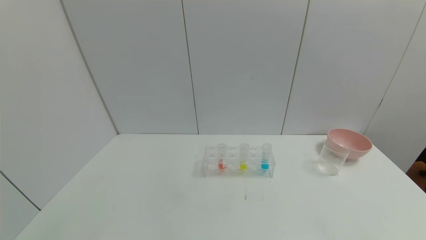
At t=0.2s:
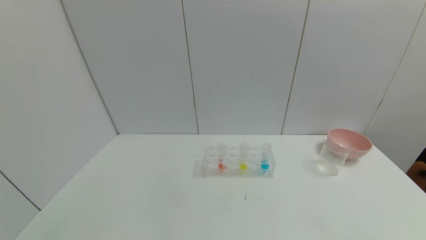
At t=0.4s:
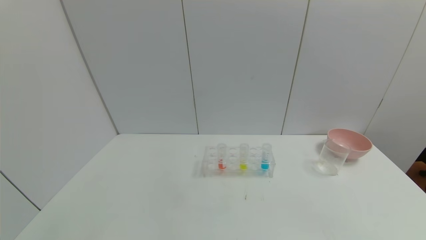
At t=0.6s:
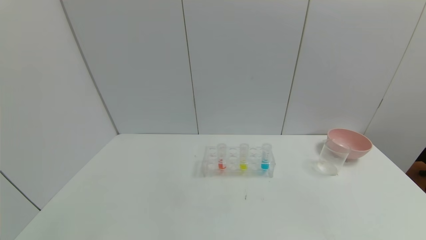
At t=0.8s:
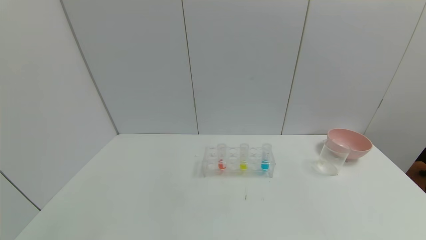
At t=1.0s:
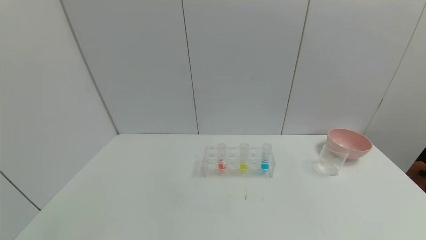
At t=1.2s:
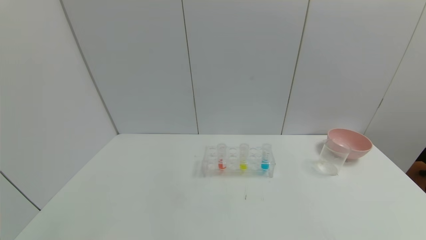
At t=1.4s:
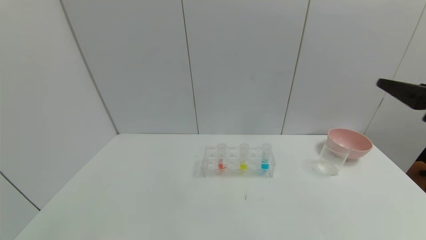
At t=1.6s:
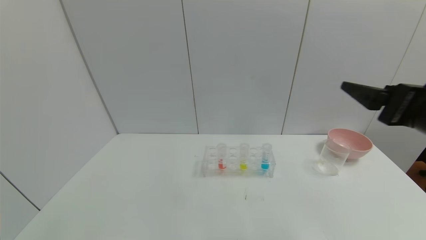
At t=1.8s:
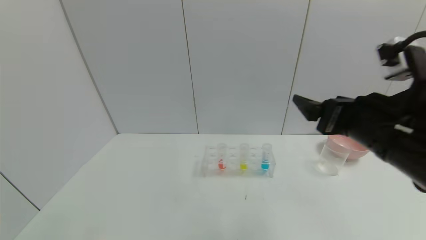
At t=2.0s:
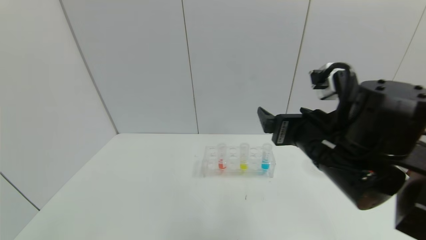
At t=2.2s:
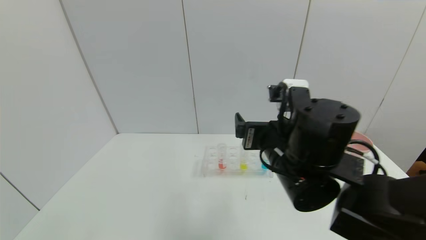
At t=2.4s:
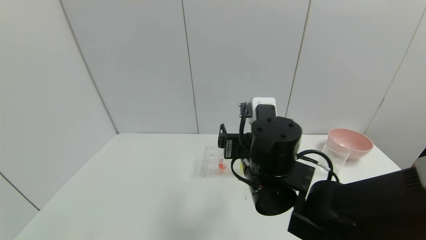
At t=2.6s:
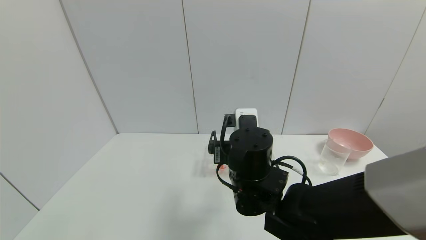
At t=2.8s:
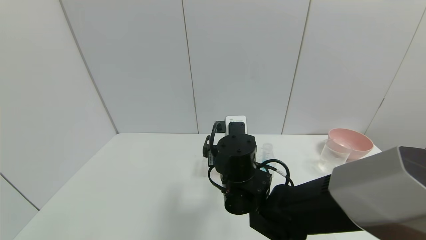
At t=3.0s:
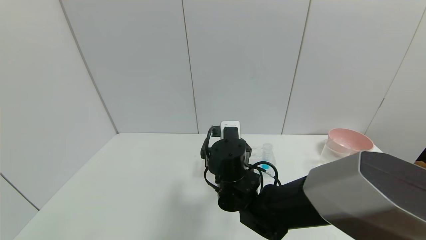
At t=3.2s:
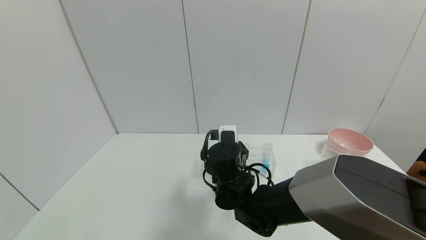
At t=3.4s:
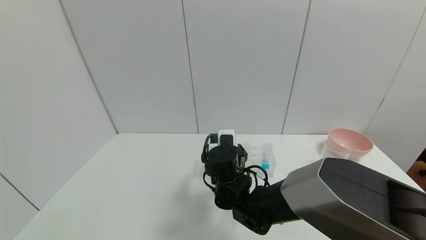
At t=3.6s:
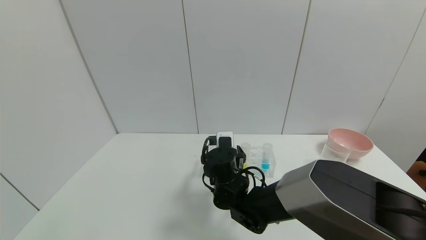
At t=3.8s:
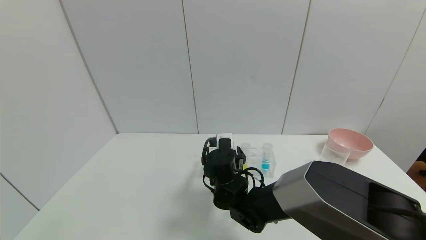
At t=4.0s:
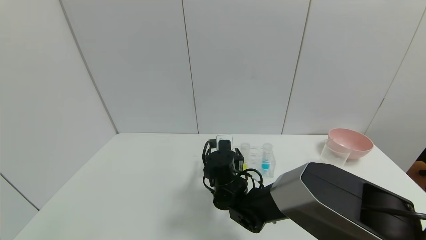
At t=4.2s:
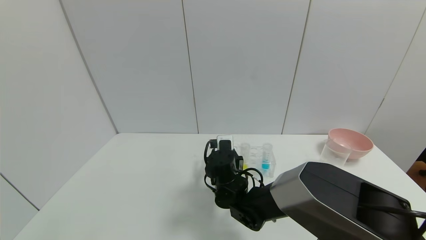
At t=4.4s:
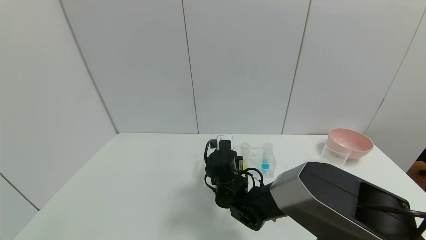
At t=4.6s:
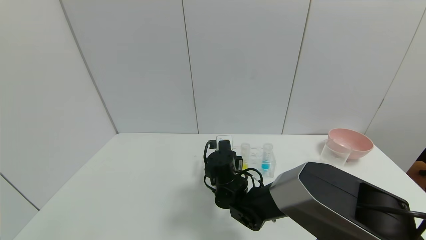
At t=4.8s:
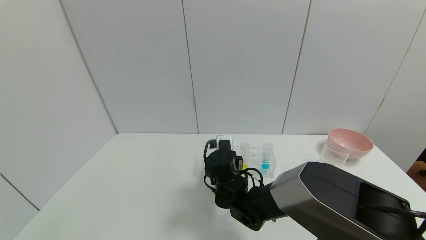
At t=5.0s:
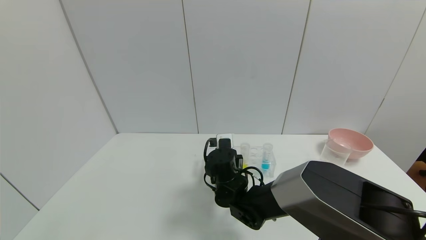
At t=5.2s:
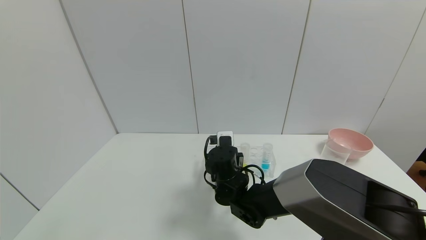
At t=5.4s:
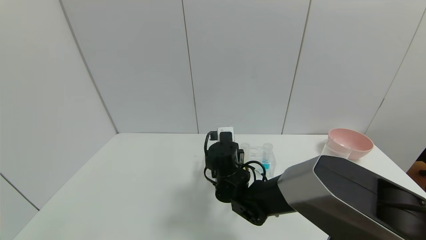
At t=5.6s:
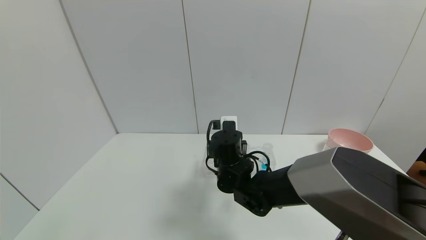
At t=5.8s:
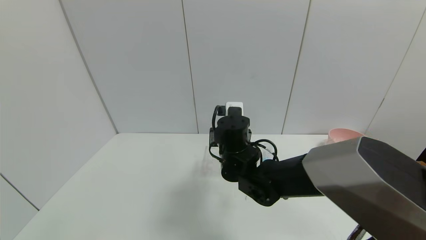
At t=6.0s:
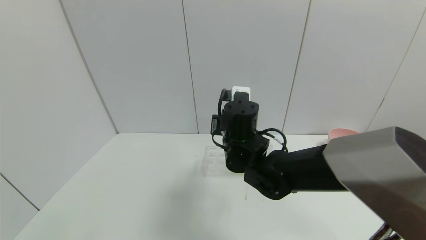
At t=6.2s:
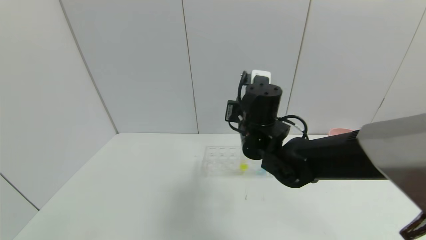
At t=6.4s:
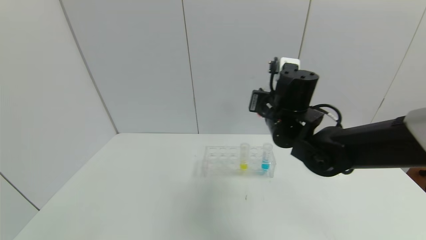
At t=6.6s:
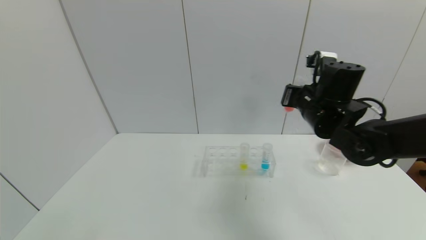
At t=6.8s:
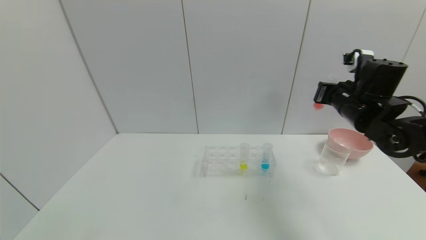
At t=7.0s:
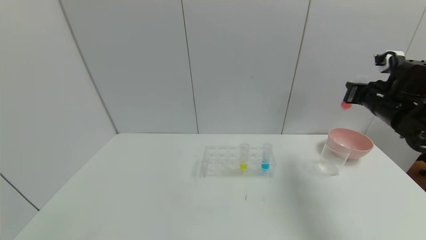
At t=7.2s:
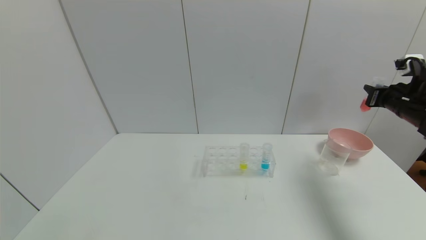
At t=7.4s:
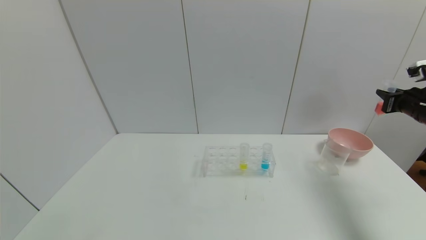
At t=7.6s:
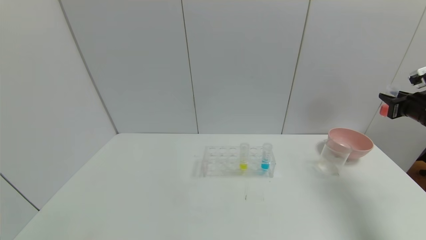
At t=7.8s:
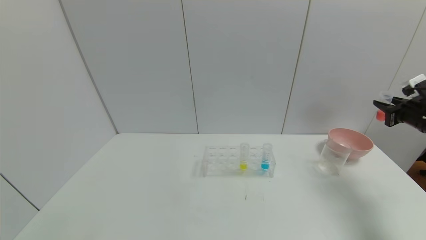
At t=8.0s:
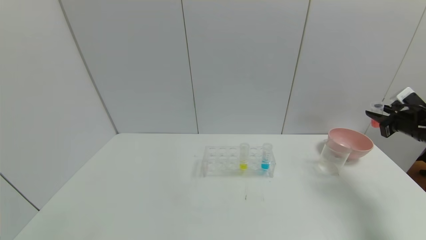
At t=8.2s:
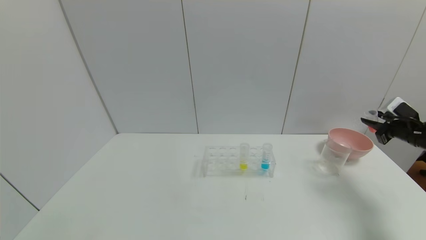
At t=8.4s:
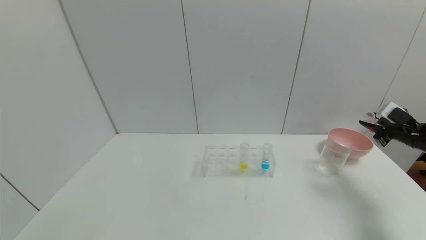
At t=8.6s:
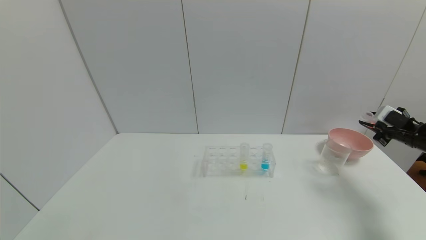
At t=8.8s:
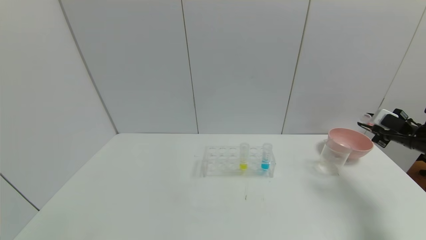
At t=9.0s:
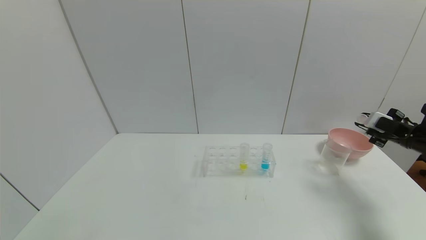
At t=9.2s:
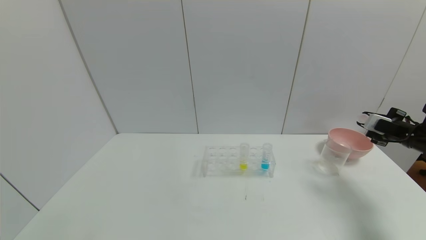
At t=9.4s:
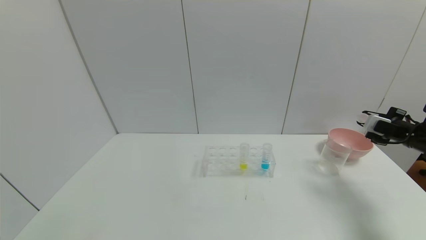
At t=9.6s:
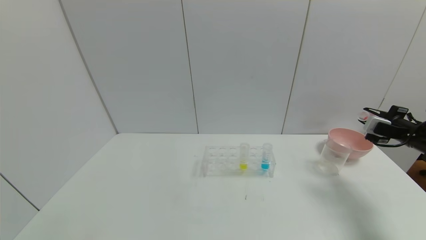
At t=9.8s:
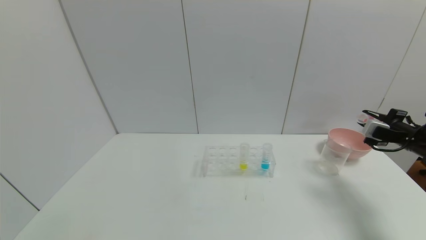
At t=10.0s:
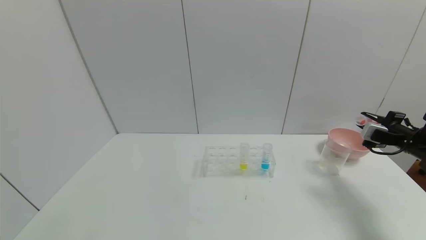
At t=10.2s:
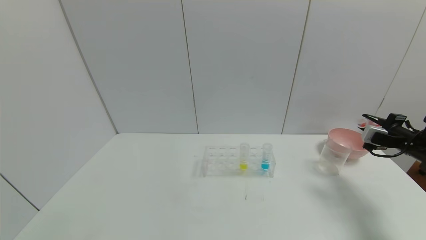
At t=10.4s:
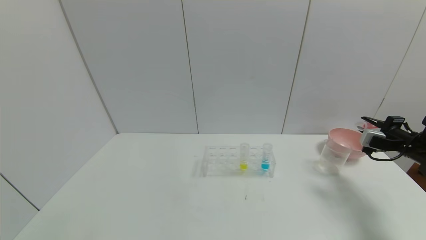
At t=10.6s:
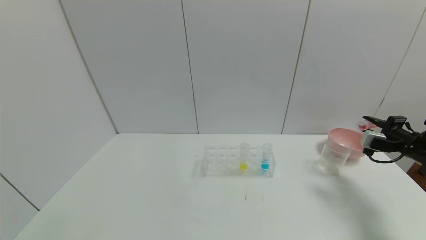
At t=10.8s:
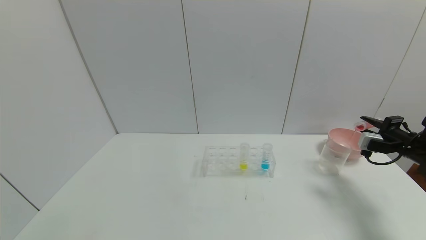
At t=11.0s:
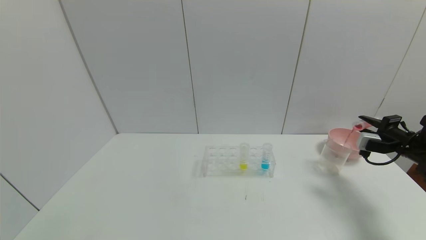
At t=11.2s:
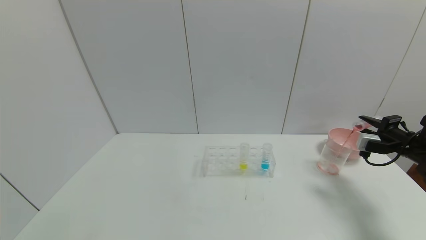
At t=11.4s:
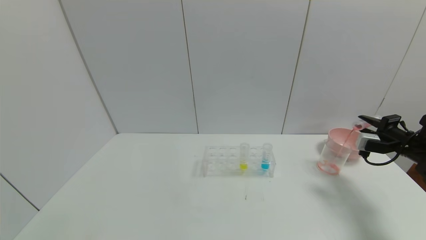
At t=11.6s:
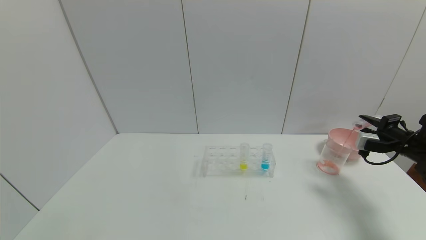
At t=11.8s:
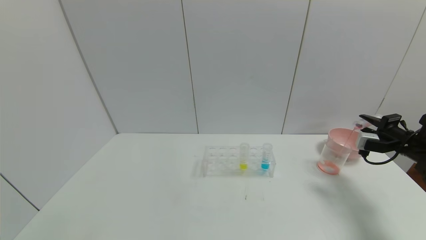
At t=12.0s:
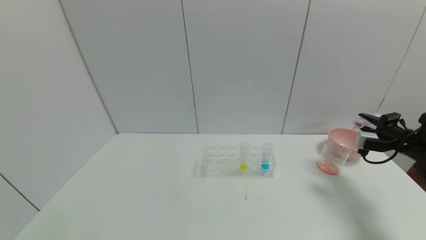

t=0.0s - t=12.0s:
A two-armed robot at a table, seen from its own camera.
Task of the whole recording: pick up the test tube with yellow pigment and the test tube with red pigment by grippers and pour them into the beaker.
Step, t=0.0s - t=4.4s: Grasp the red reagent with the right gripper.
t=0.0s - t=1.6s: The right gripper goes roughly 30 cm forward, upward and to the left.
t=1.6s - t=3.0s: The right gripper shifts about 30 cm to the left, downward and forward.
t=3.0s - t=4.4s: The right gripper moves downward, approximately 5 cm, and closes.
t=4.4s - t=6.0s: The right gripper heads upward, covering approximately 15 cm.
t=6.0s - t=7.6s: The right gripper heads to the right, covering approximately 50 cm.
t=7.6s - t=9.0s: The right gripper shifts roughly 5 cm downward.
t=9.0s - t=10.4s: The grippers stay close to where they were, moving slightly.
t=10.4s - t=12.0s: The grippers stay close to where they were, moving slightly.

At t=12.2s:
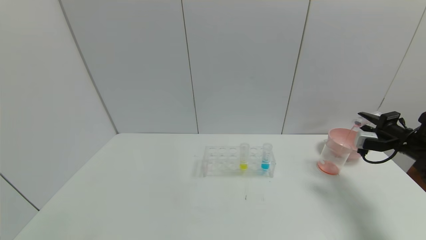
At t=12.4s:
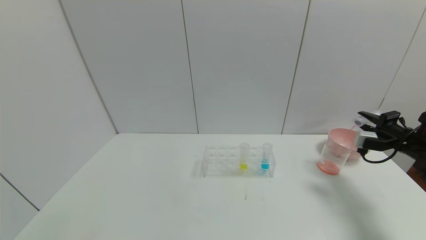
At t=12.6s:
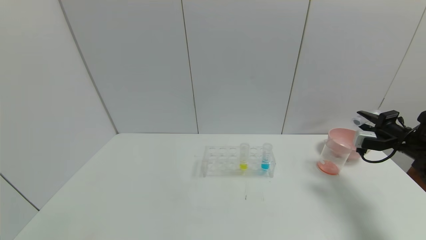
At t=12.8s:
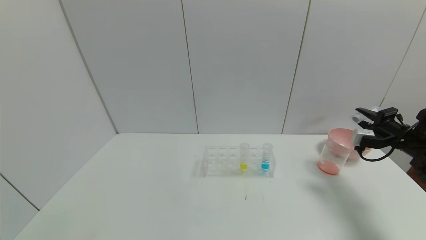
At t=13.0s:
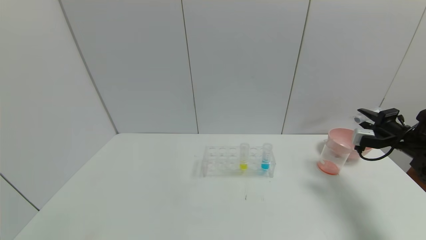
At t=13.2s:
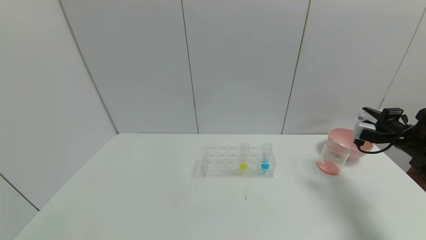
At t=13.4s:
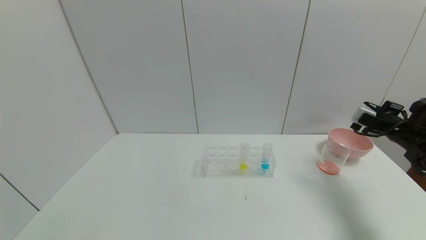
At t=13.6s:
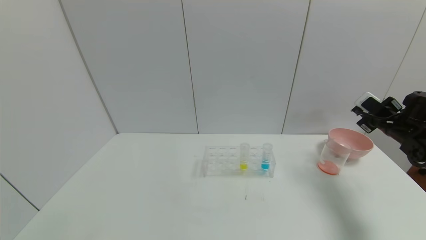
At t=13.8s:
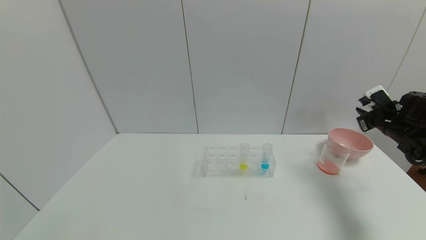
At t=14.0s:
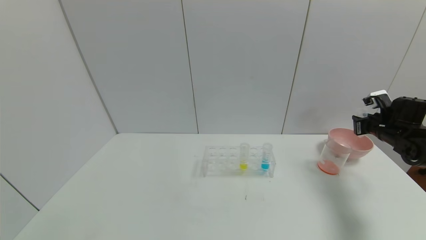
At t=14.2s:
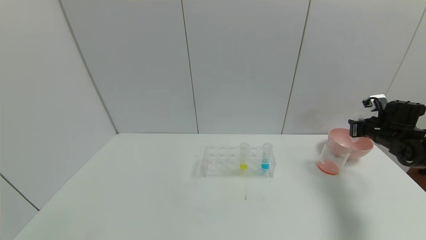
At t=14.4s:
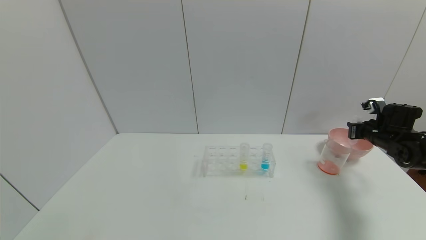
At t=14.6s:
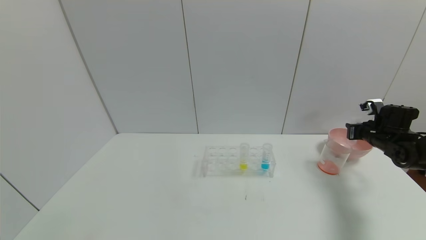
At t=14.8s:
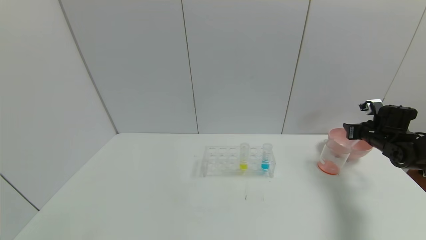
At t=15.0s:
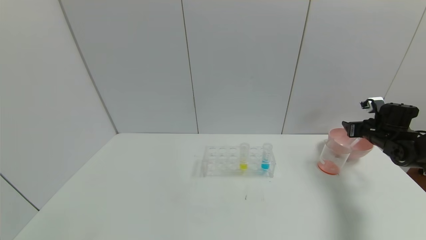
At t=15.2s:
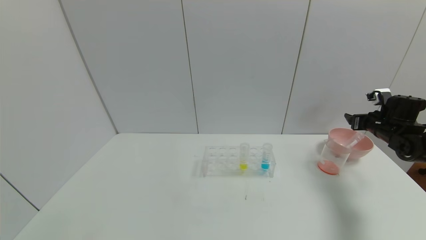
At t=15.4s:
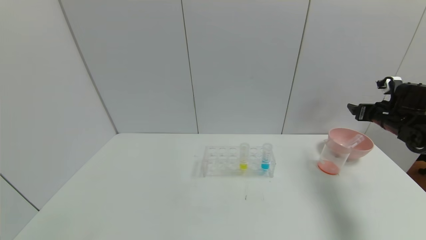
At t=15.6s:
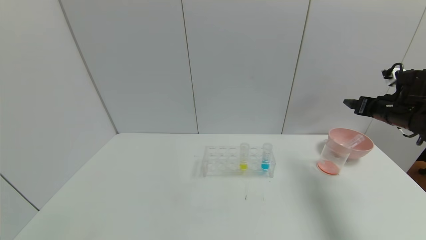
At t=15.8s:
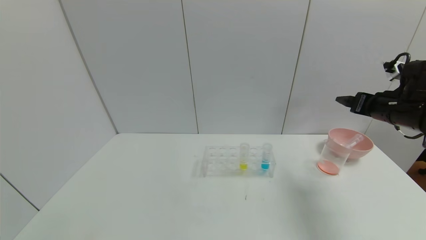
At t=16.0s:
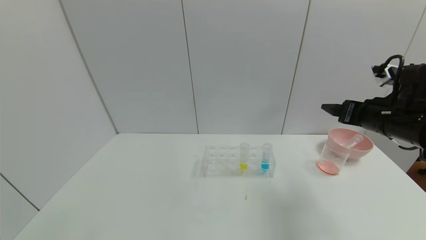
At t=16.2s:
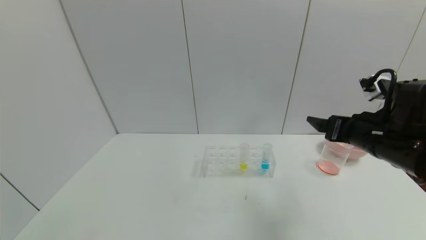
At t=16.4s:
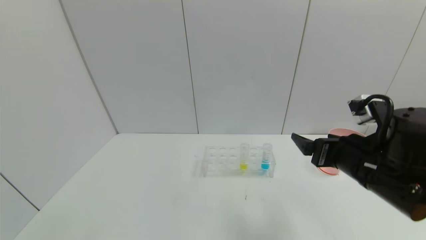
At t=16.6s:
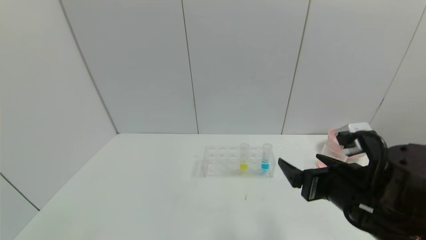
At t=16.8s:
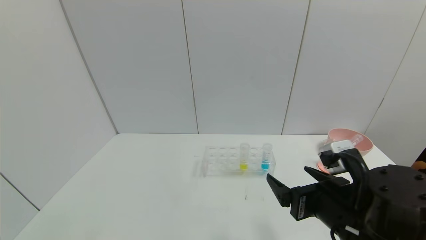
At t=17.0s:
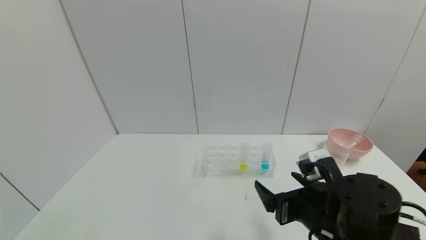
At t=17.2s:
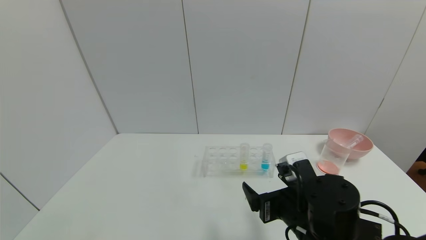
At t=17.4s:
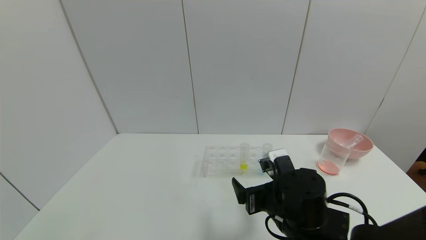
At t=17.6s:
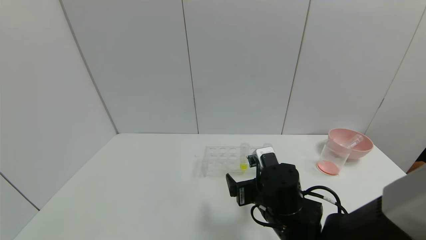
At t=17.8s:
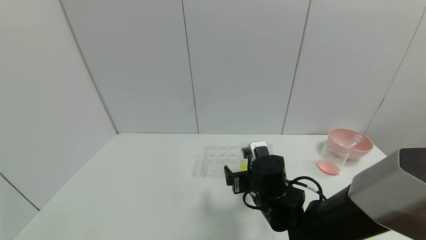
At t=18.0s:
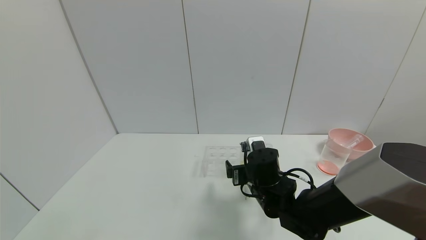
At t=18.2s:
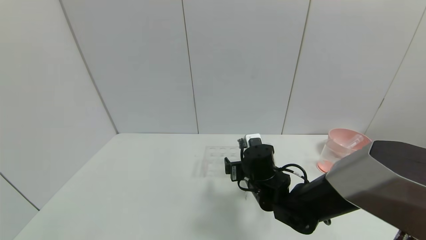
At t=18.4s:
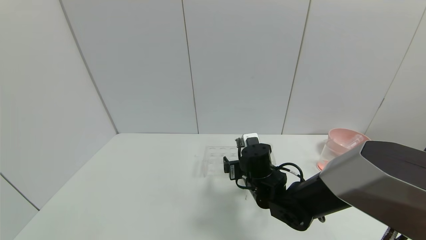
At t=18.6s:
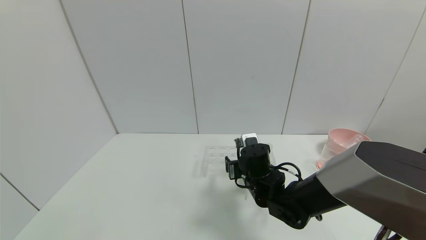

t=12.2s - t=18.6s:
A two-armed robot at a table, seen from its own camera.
Task of the whole recording: pick up the test tube with yellow pigment and the test tube with red pigment by grippers and pour them into the beaker.
Step, t=13.0s - t=15.0s: Place the test tube into the bowl with the right gripper.
t=12.2s - t=13.8s: The right gripper changes place by roughly 5 cm.
t=13.8s - t=15.4s: The right gripper opens its fingers.
t=15.4s - t=17.0s: The right gripper heads to the left and backward, covering some 35 cm.
t=17.0s - t=18.6s: The right gripper goes about 20 cm forward, to the left and downward.
